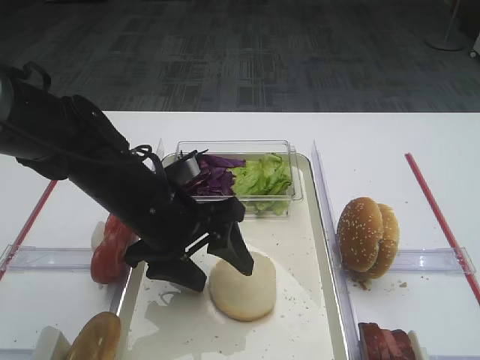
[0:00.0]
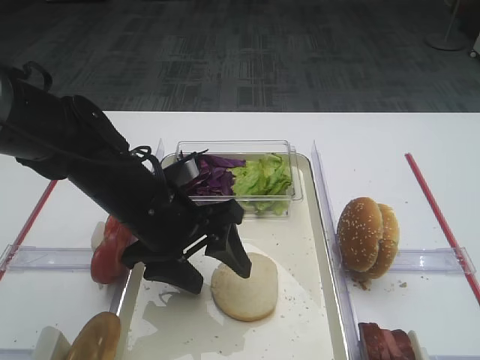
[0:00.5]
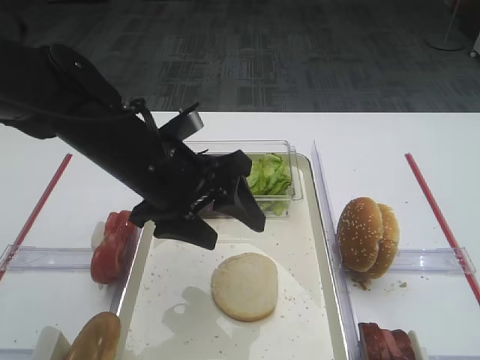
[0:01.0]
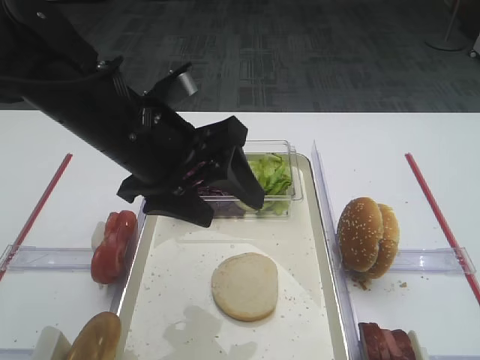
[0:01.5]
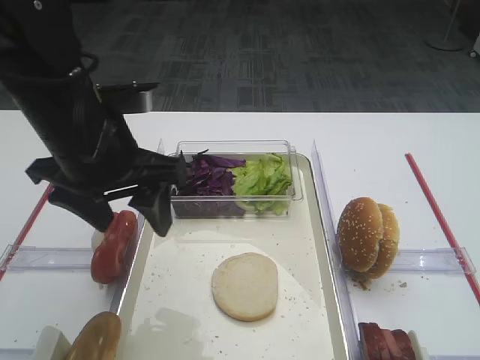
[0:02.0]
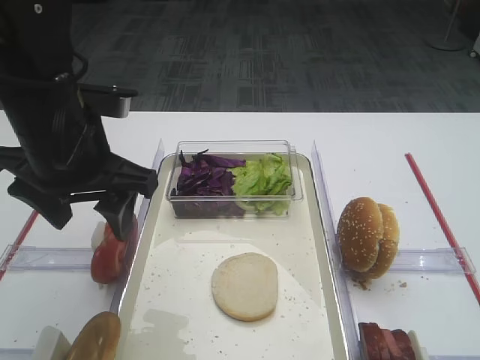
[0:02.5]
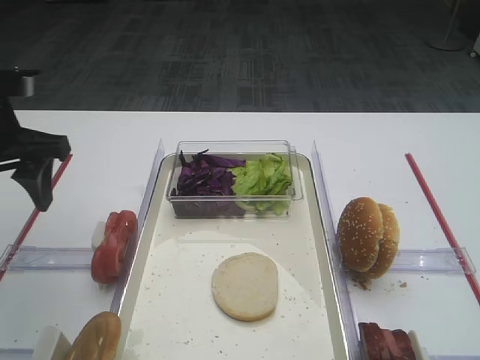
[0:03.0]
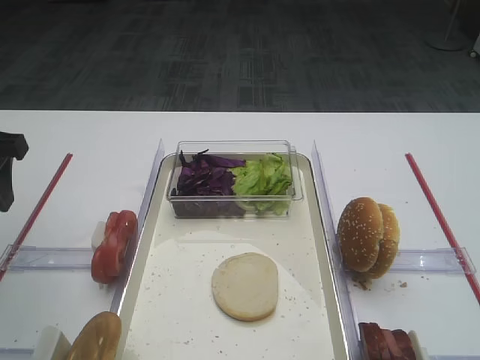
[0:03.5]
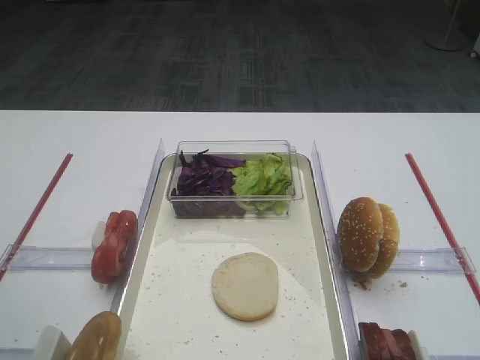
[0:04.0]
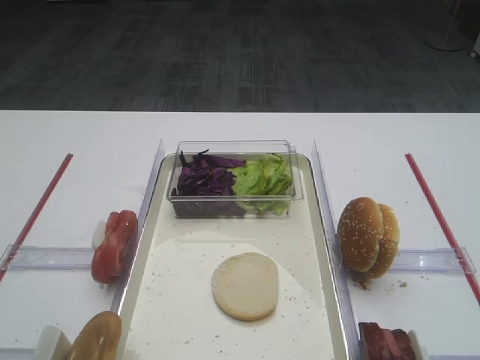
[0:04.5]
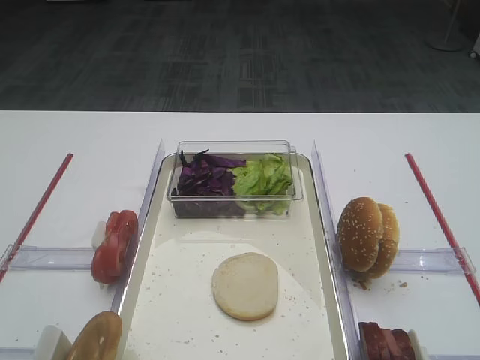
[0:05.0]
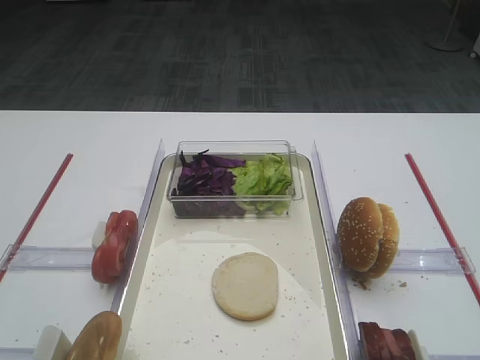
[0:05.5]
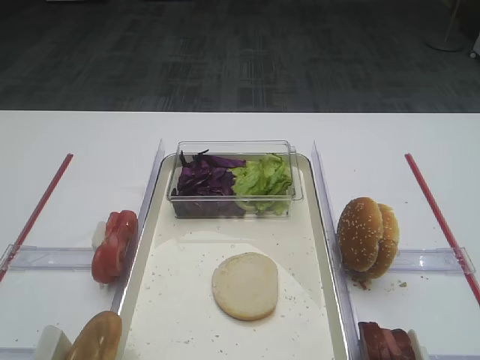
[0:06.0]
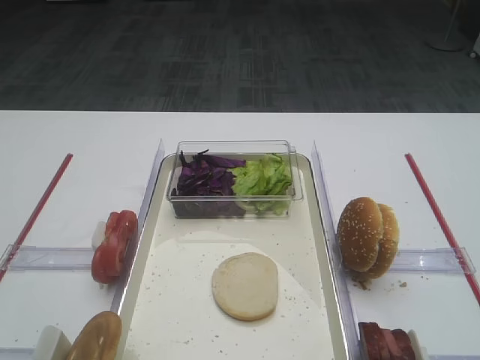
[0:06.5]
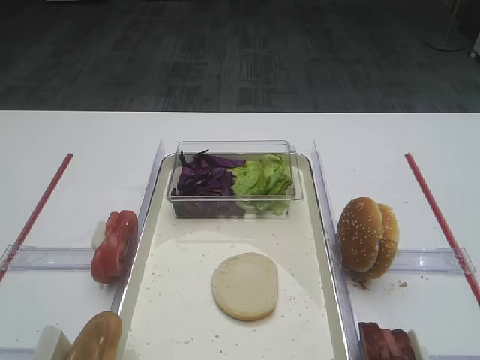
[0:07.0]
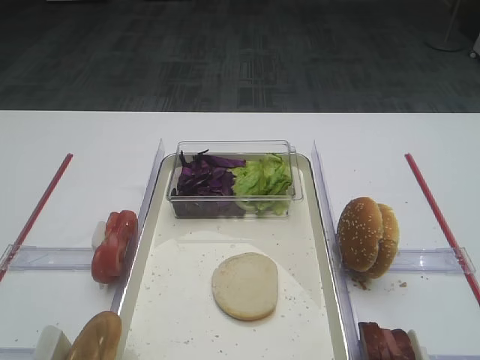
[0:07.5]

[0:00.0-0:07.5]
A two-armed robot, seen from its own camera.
0:00.0 to 0:02.0: The left gripper shifts roughly 10 cm upward.
0:02.0 to 0:04.0: The left gripper heads to the left and backward, covering roughly 20 cm.
0:05.5 to 0:07.5: Both grippers stay about where they are.

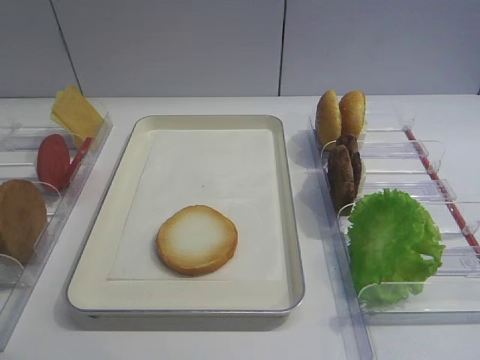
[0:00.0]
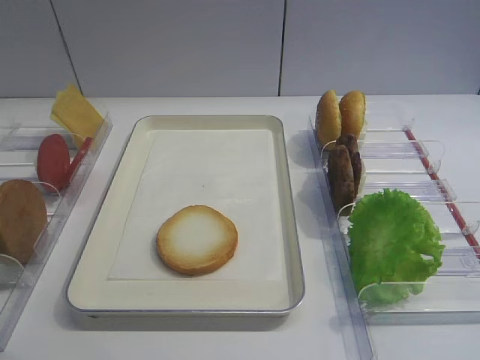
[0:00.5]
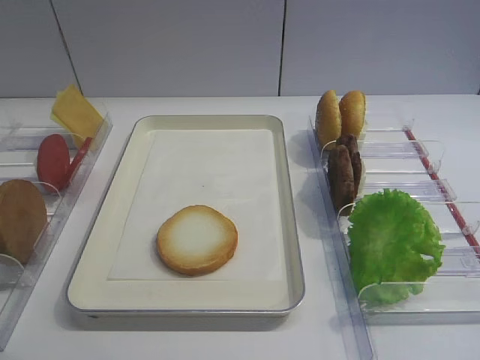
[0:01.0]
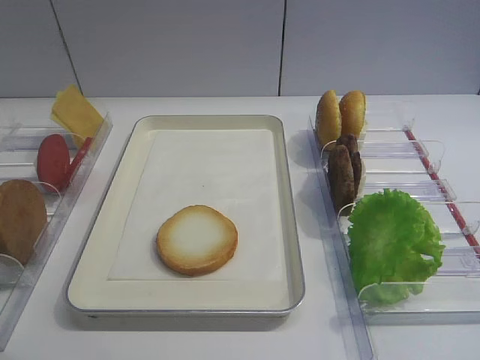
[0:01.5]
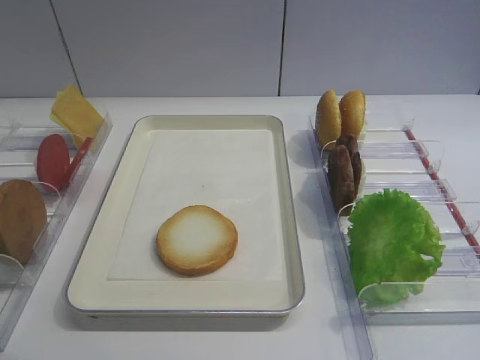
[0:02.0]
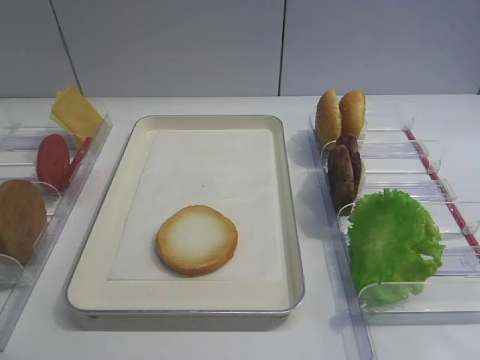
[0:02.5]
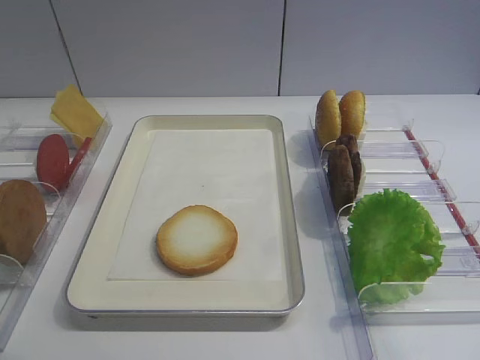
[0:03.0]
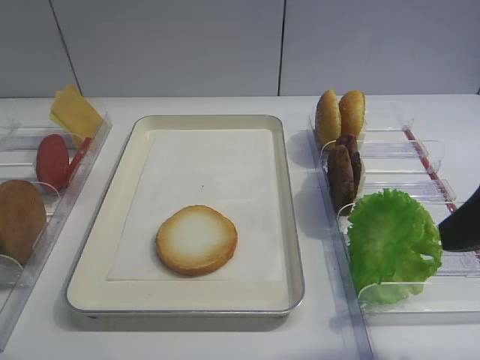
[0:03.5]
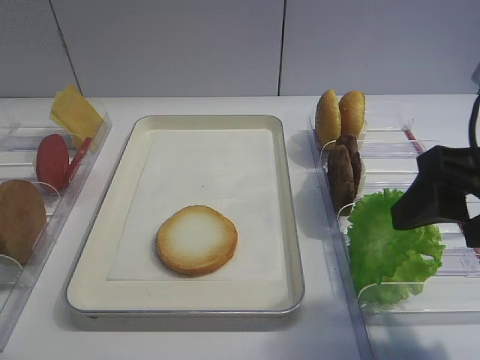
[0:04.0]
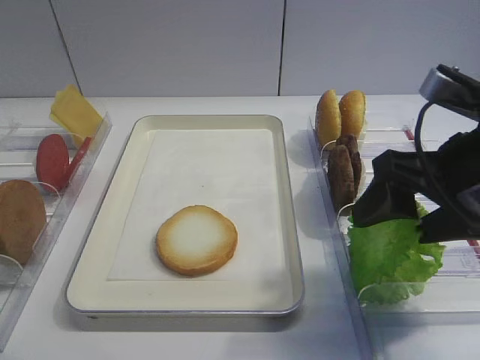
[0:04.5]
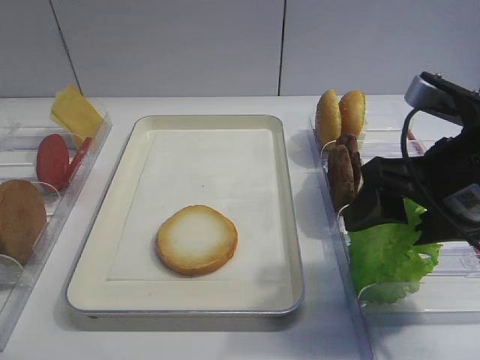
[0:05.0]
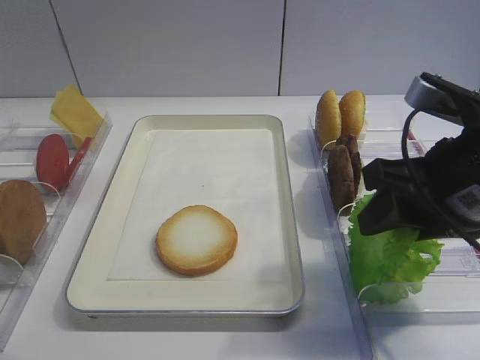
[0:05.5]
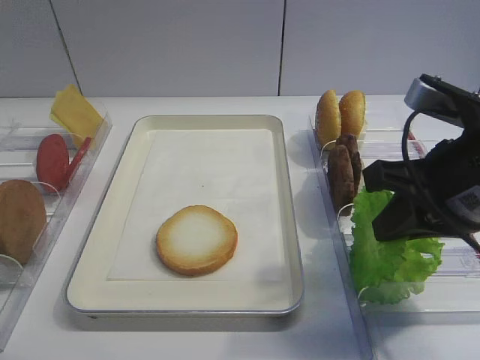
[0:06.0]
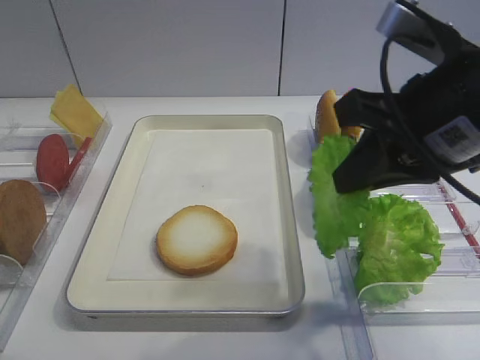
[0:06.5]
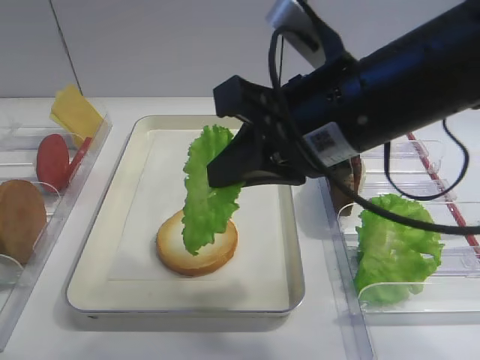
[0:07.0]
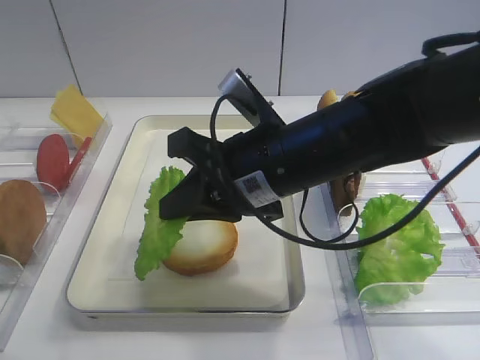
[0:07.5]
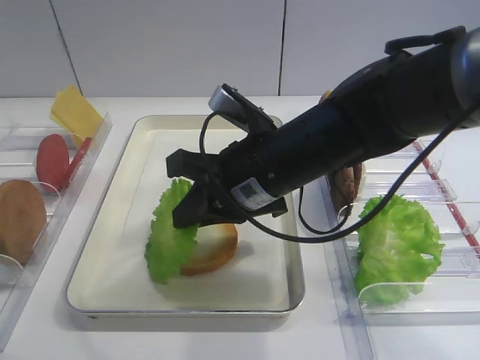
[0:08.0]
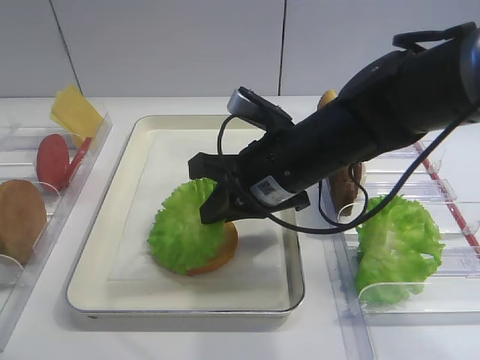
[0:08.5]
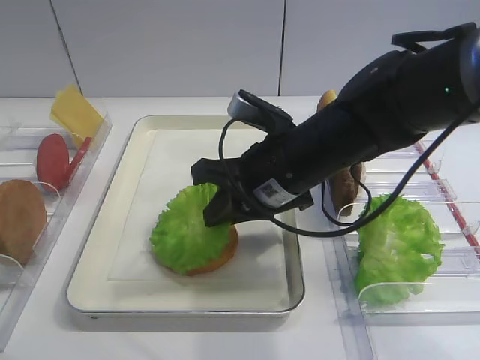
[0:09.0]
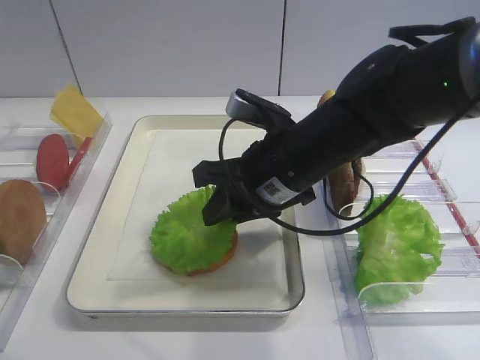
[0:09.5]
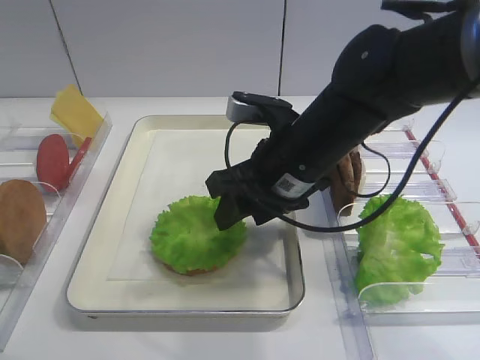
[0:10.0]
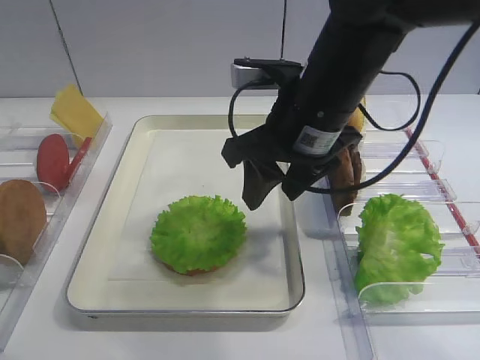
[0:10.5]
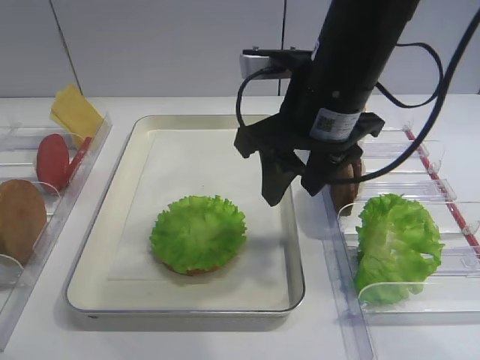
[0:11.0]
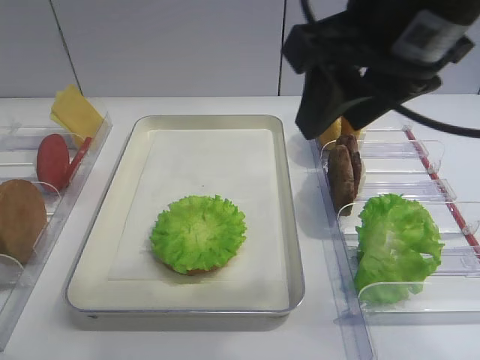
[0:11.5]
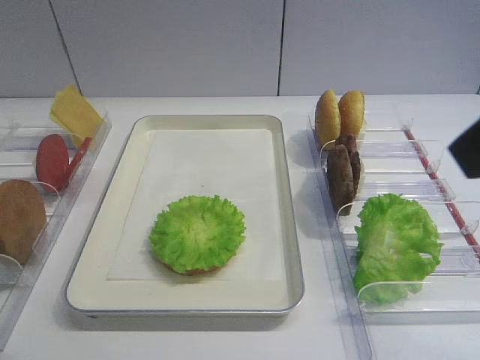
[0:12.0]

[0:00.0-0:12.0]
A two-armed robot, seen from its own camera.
Step, 0:00.0 to 0:06.0: Pick up the lettuce leaf with the right gripper.
Step, 0:06.5 to 0:10.0: Place the lettuce leaf on the bread slice with the right gripper.
0:02.0 to 0:04.0: The right gripper moves forward, about 20 cm.
0:04.0 to 0:06.0: The right gripper closes up.
0:06.0 to 0:08.0: The right gripper moves to the left and forward, about 15 cm.
0:08.0 to 0:10.0: The right gripper opens.
0:10.0 to 0:12.0: The right gripper goes roughly 30 cm upward, backward and to the right.

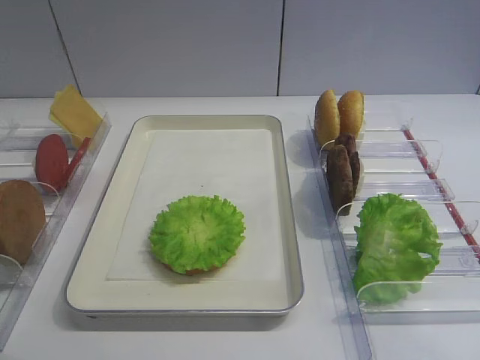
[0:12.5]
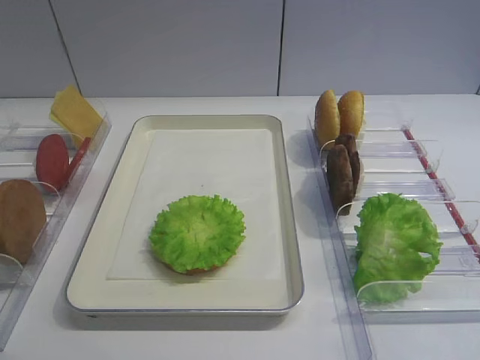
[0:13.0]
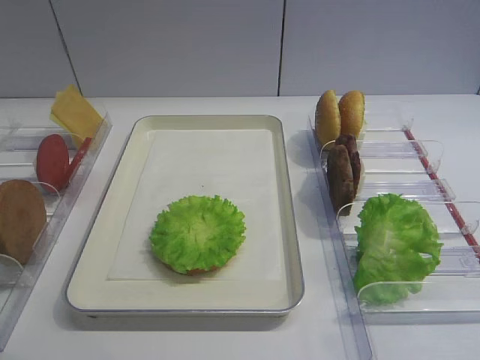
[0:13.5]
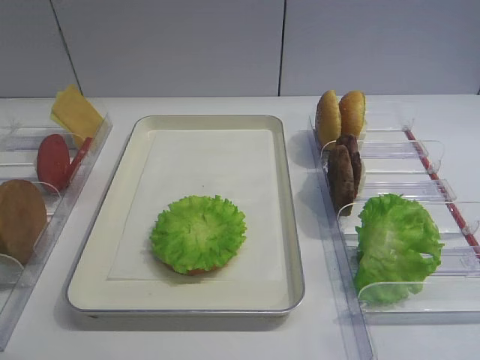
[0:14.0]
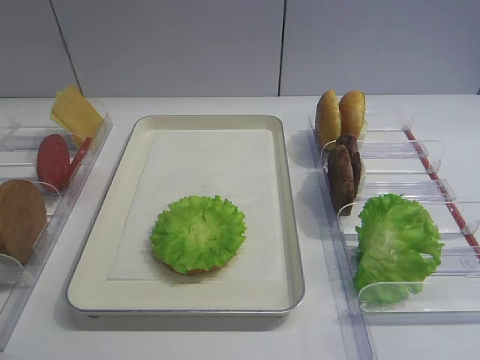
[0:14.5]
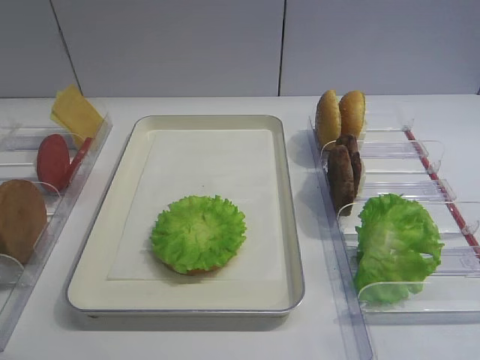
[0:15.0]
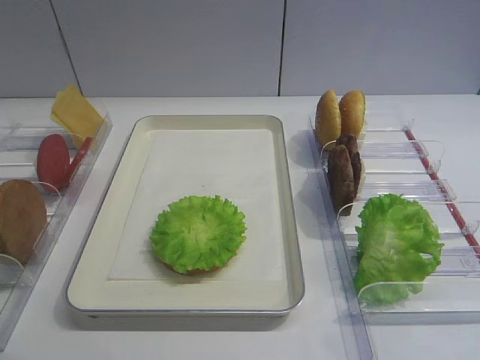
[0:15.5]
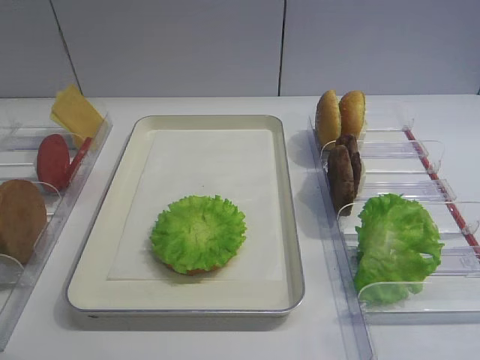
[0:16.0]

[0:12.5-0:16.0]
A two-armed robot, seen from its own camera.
0:12.5 to 0:14.5: The right gripper heads downward, covering roughly 10 cm.
0:14.5 to 0:16.0: The two grippers keep their place.

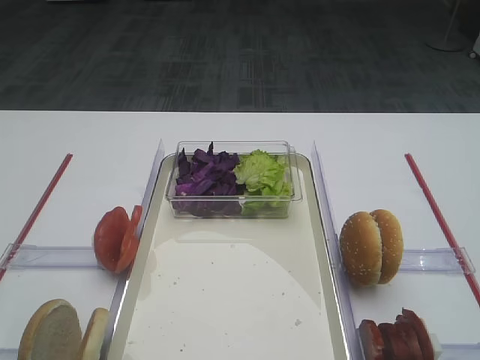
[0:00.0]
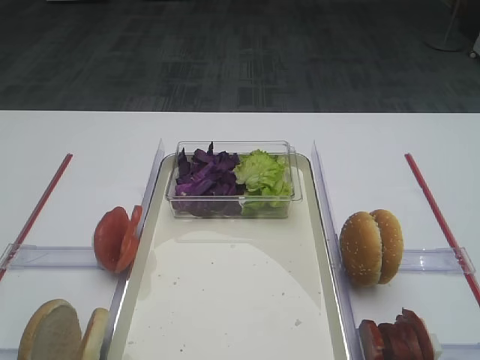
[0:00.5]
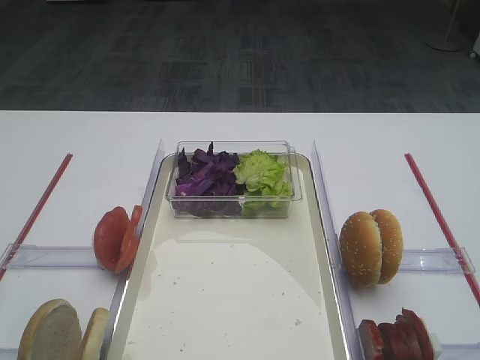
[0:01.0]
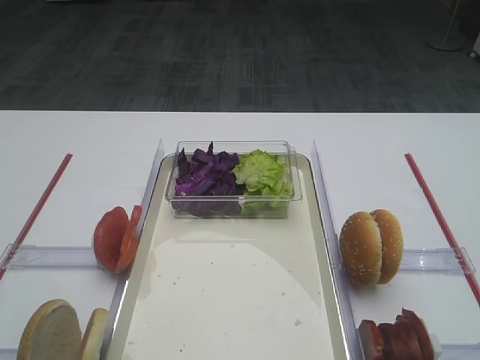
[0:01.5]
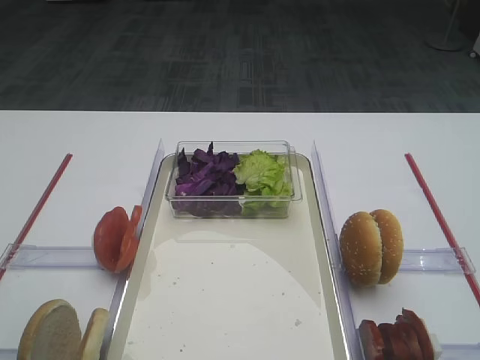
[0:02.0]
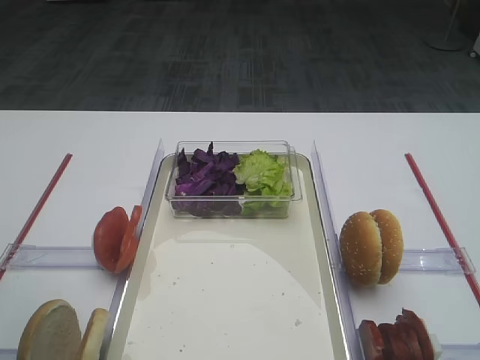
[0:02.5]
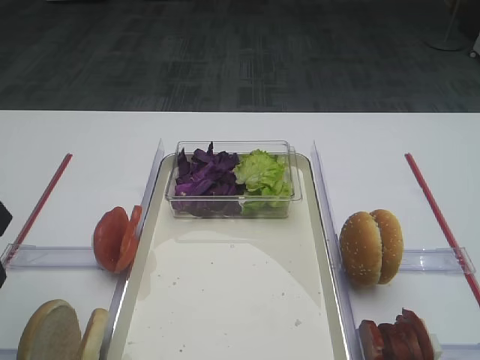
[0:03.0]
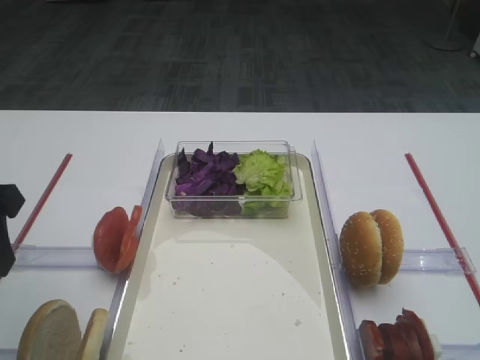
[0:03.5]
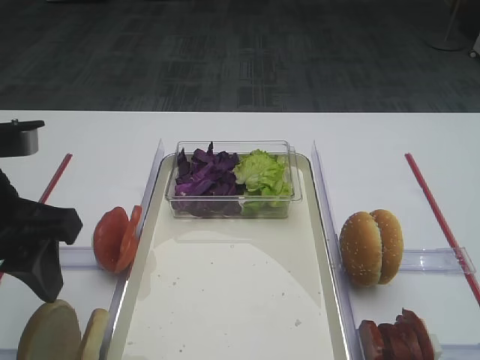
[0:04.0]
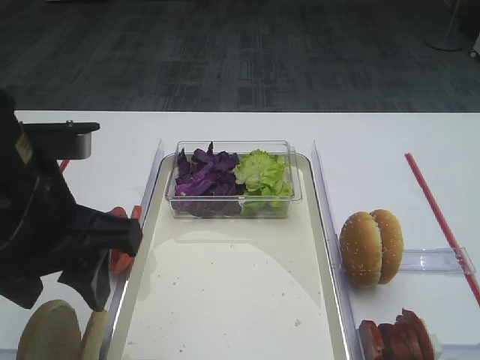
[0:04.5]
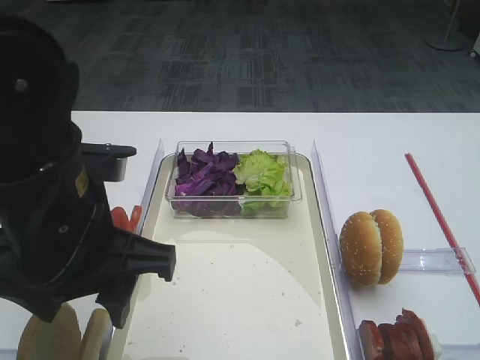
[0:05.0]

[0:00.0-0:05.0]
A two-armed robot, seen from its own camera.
0:02.5 to 0:05.0: The left gripper shifts some 15 cm to the right.
